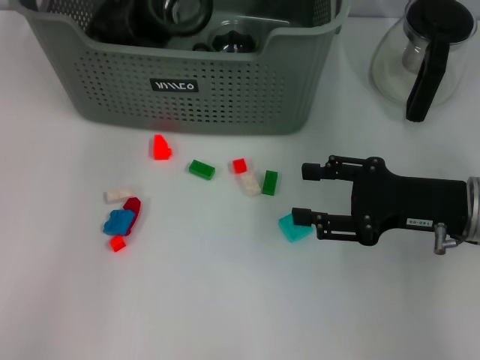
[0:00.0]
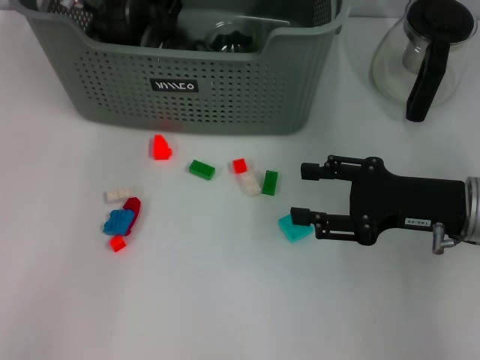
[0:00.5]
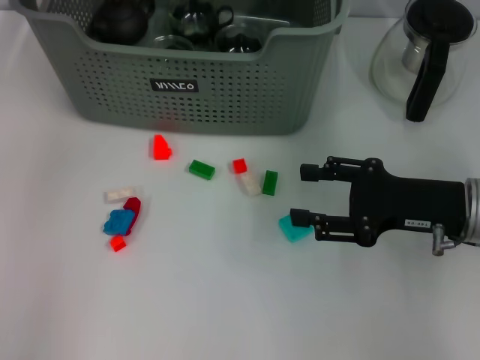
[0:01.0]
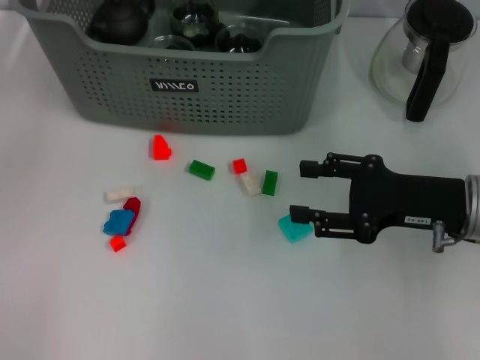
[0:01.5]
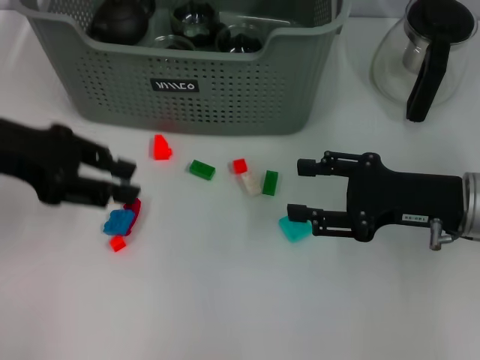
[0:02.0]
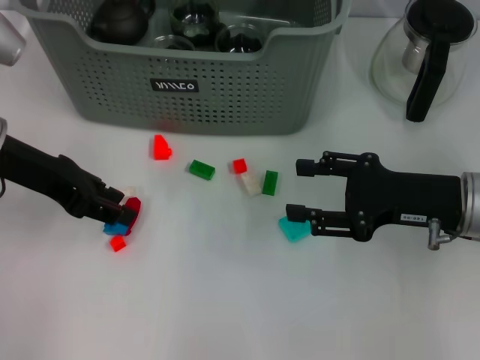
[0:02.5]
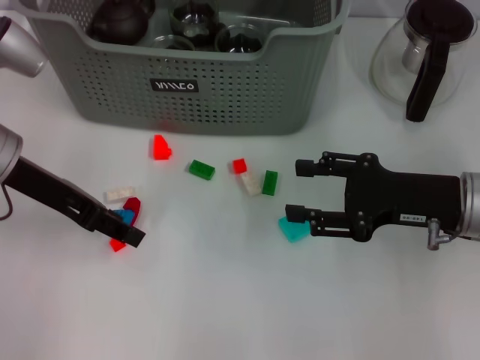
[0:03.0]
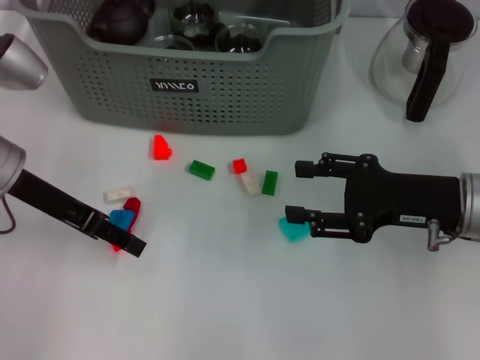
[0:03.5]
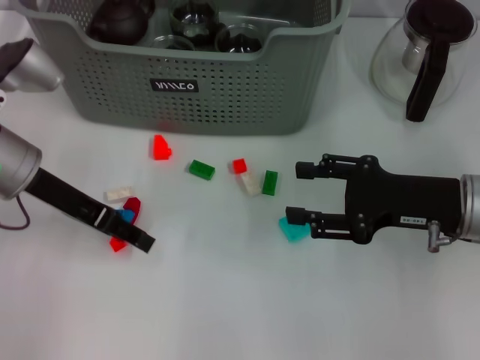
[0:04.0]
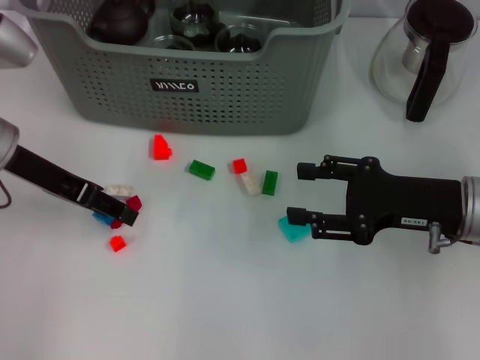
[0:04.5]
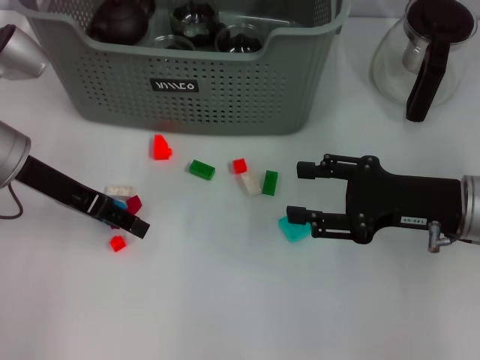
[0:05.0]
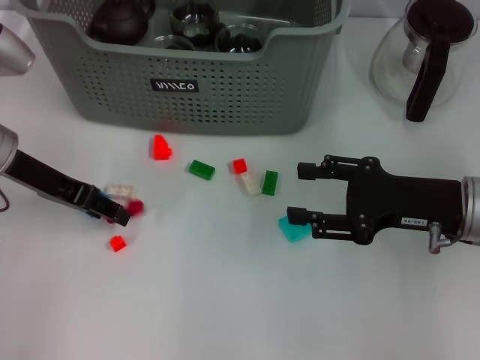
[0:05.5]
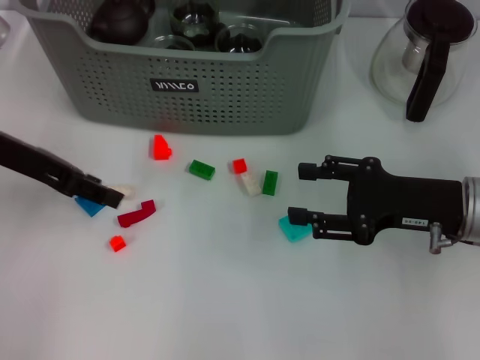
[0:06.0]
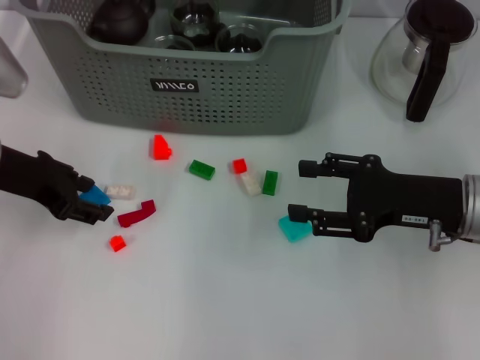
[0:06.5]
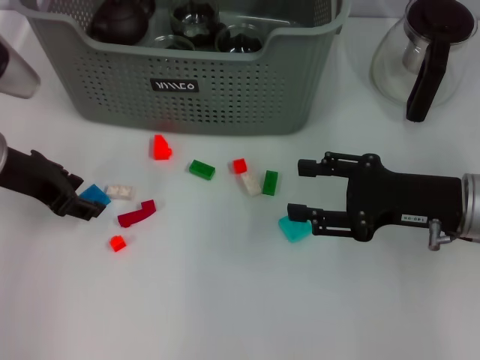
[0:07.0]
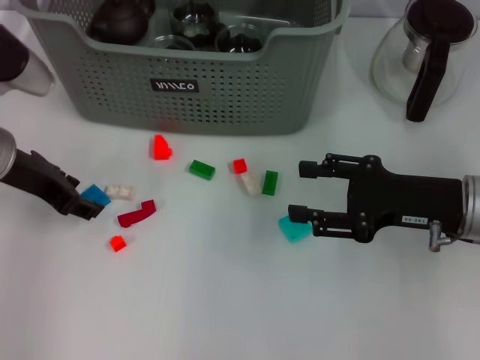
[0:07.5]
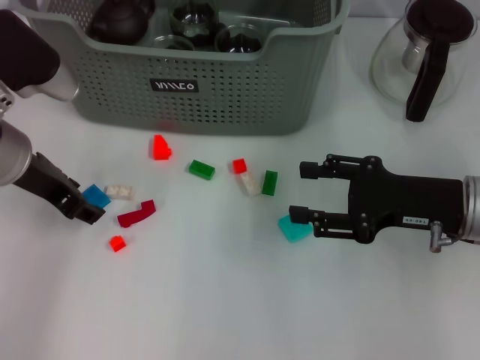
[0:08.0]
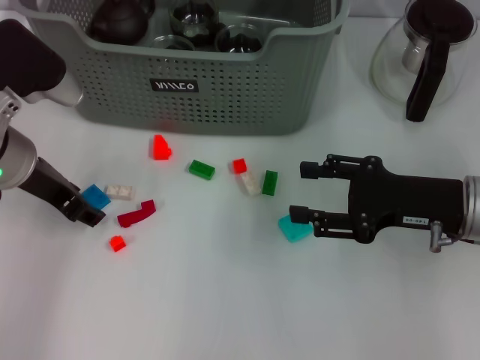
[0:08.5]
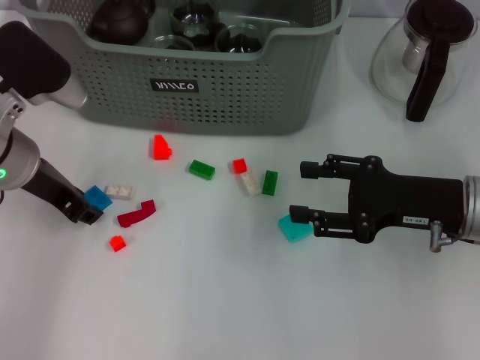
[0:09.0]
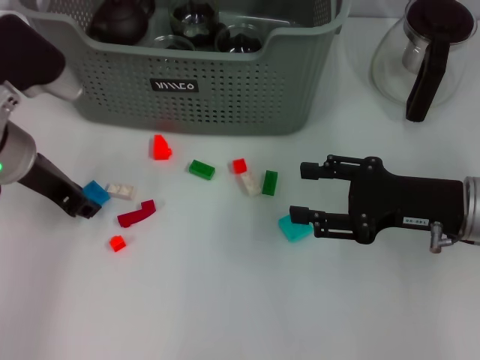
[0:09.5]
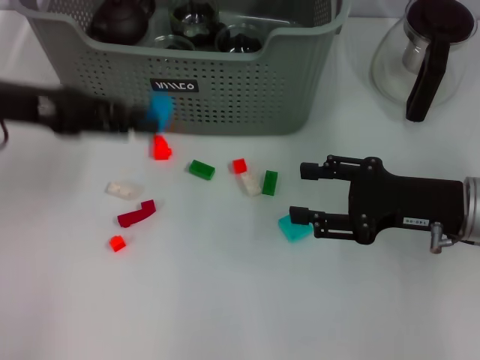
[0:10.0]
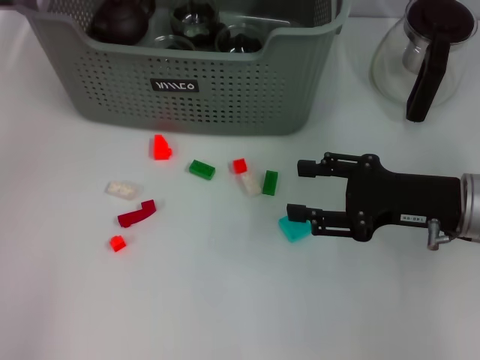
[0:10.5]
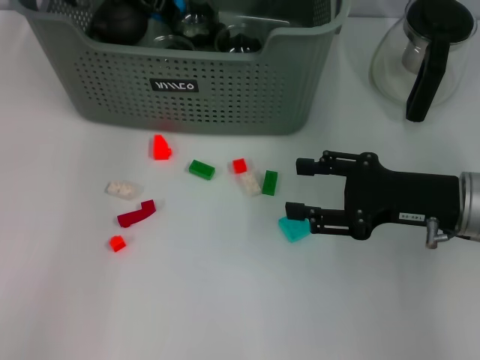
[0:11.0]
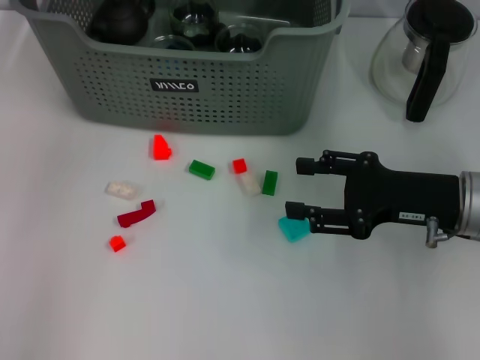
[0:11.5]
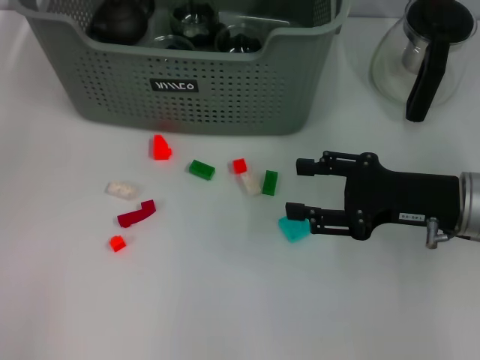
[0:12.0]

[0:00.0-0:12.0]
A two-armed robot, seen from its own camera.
Task of the whole recording: pick up the teacup on the table and place it into the storage bin, pick up the block on the table and place it into the storage bin.
Step, 0:01.5 to 0:09.5: Grasp the light blue block with left gripper.
Step, 0:10.0 to 0:11.5: Place the light blue block in the storage box with left gripper.
0:00.0 to 0:02.0: The left gripper is displaced backward and to the left by about 20 cm, and opens up.
0:02.0 to 0:04.0: The left gripper moves downward, some 5 cm.
0:04.0 to 0:06.0: The grippers make only small movements.
0:08.0 to 0:10.0: The left gripper travels upward by some 5 cm.
0:10.0 to 0:12.0: The left gripper is displaced upward by approximately 5 cm, goes forward and returns, about 15 cm each way, and opens its fingers.

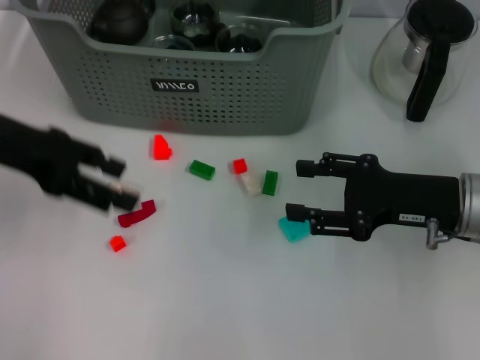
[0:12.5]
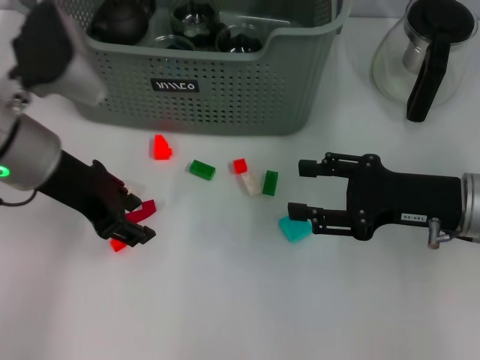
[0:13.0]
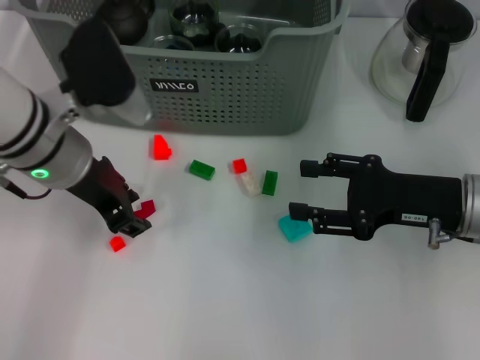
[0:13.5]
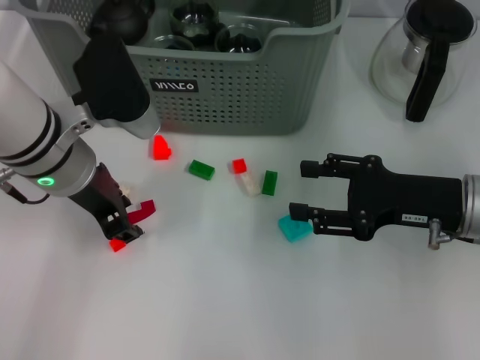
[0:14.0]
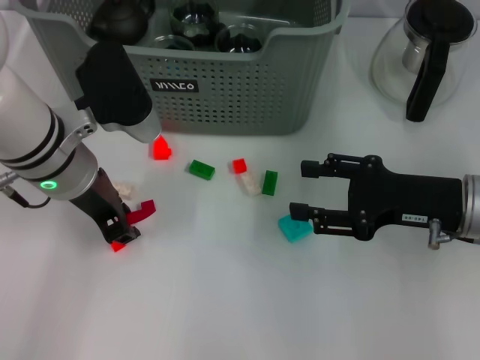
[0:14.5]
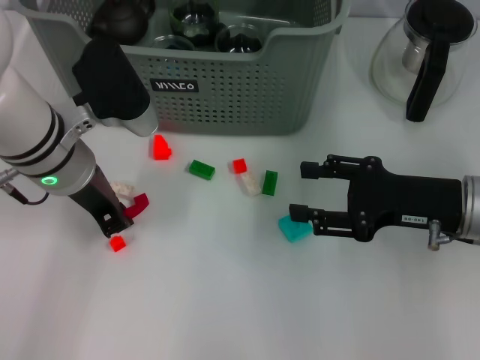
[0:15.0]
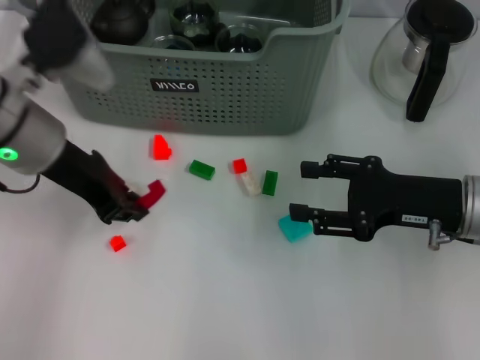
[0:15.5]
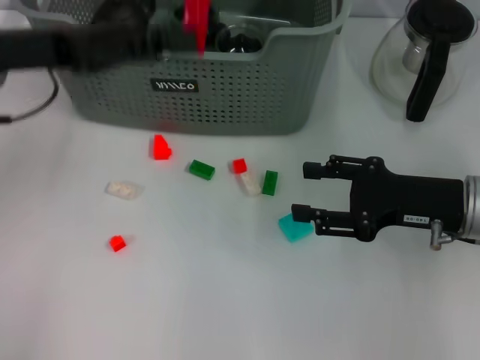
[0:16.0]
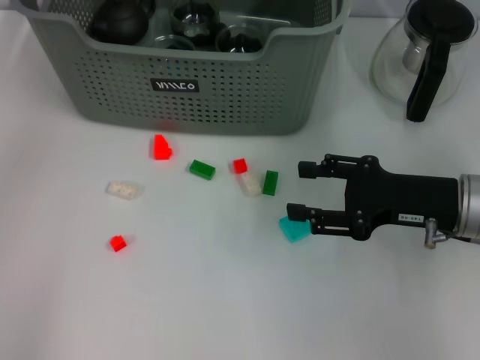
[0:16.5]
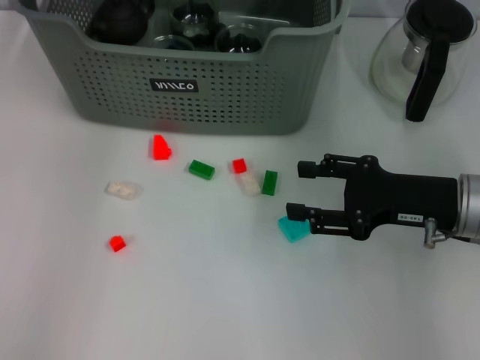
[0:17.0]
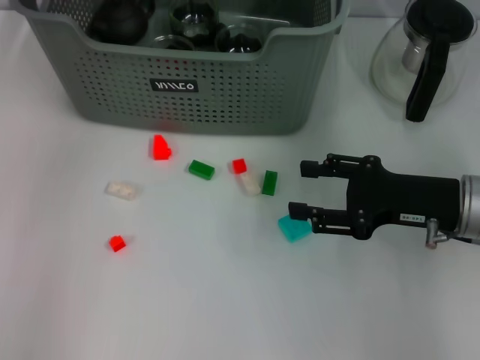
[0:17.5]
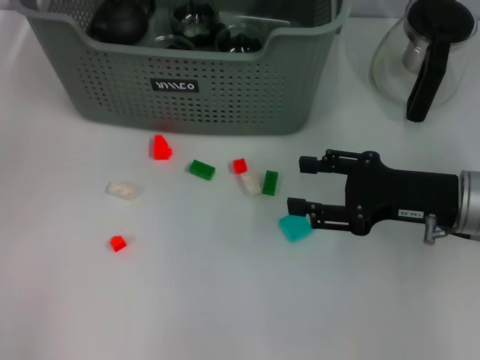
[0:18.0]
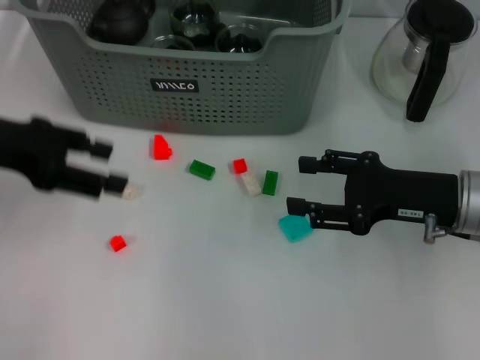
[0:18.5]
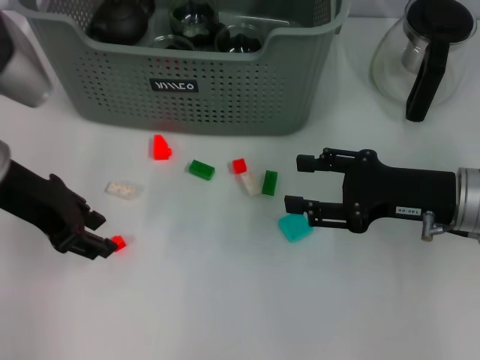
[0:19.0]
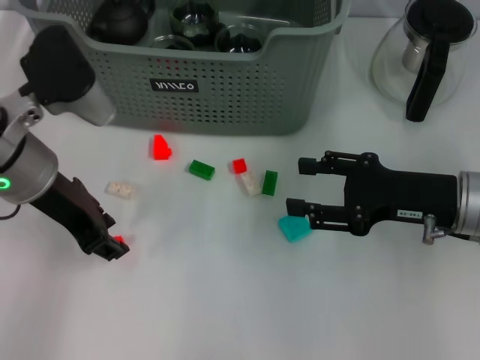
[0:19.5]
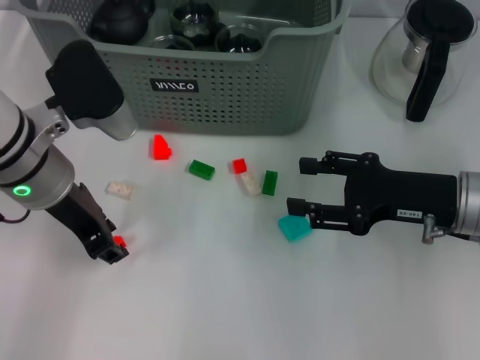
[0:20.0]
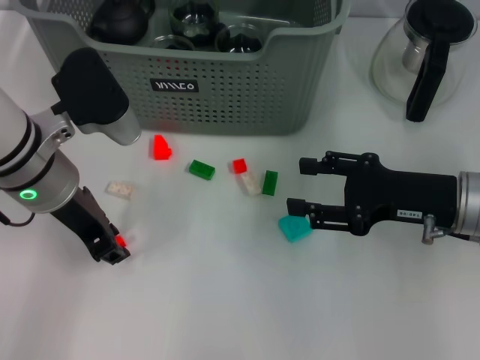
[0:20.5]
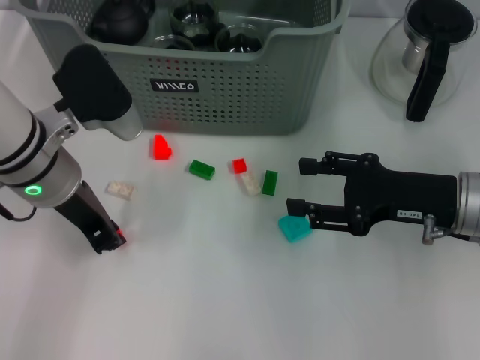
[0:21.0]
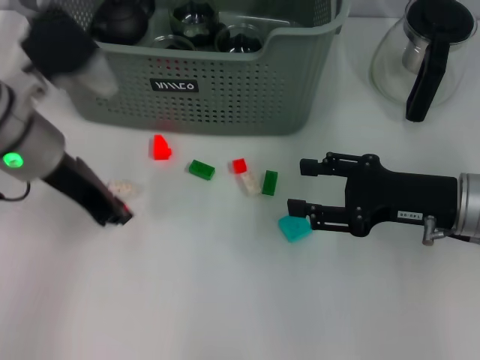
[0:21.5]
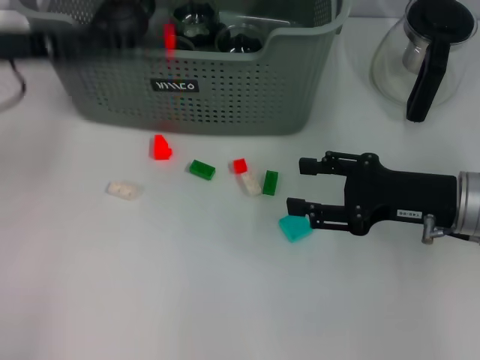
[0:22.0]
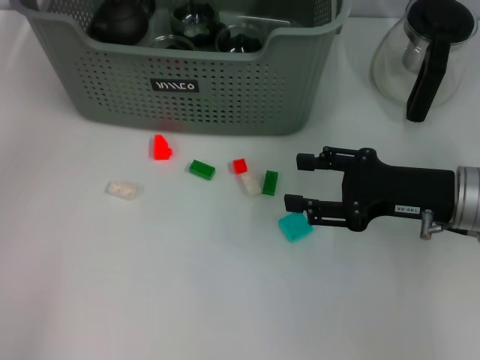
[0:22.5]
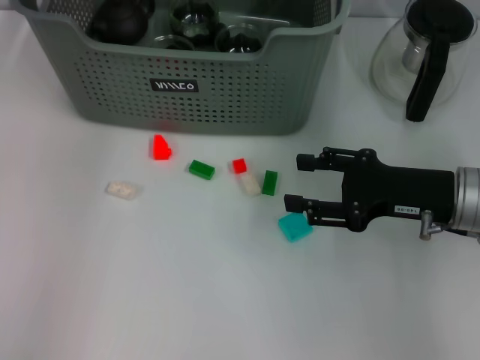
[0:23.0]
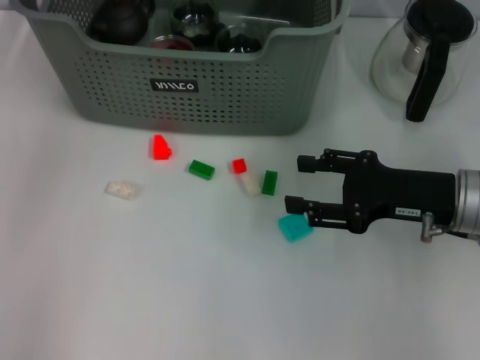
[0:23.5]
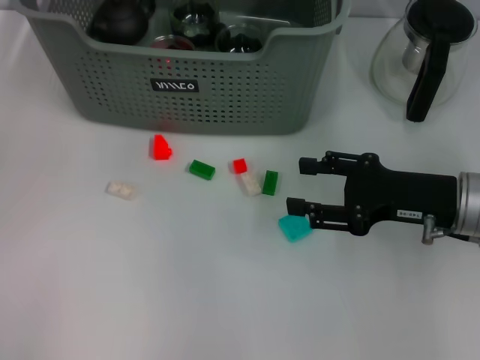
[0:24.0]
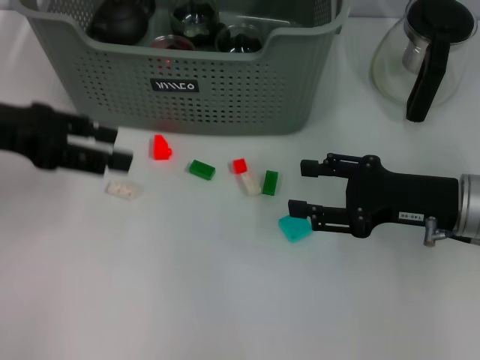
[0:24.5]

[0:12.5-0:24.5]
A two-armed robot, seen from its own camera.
Task of the whole recording: pick up the teacup on the table and place it into the storage bin, pick up the block on the table and place it into the storage bin.
Step, 0:12.5 to 0:15.0: Grasp the red block with left gripper.
Step, 0:15.5 to 0:17.0: Place the red block in the storage box with left gripper.
Step, 0:18.0 to 0:21.0: Grasp the orange block with left gripper.
Step, 0:21.5 to 0:23.5: Place the orange block in the storage box with left gripper.
0:12.5 to 0:14.5: The left gripper goes roughly 10 cm to the right and downward, and closes up.
0:14.5 to 0:16.5: The left gripper travels upward, forward and to the left by about 20 cm.
0:16.5 to 0:18.5: The left gripper travels backward, downward and to the left by approximately 15 cm, and opens up.
0:18.5 to 0:20.5: The left gripper moves to the right and downward, about 10 cm, and closes.
0:20.5 to 0:22.5: The left gripper travels upward, forward and to the left by some 20 cm.
0:22.5 to 0:24.5: The left gripper heads backward and downward, covering roughly 15 cm, and opens up.

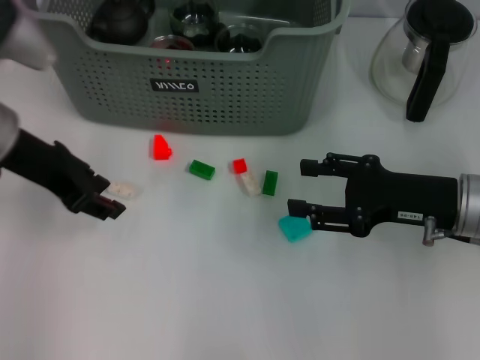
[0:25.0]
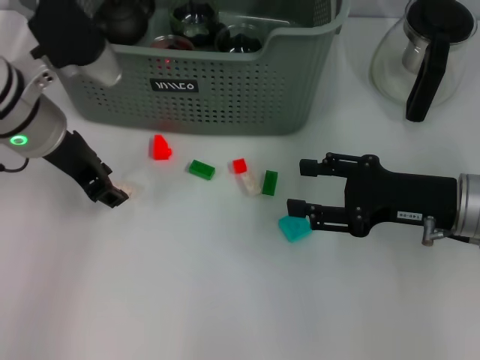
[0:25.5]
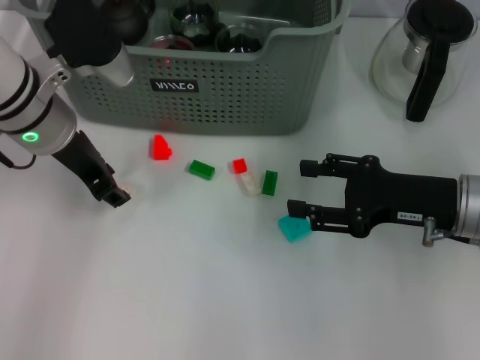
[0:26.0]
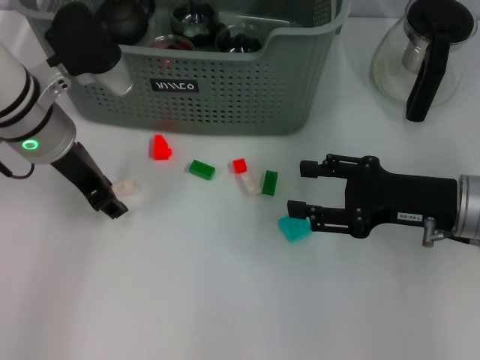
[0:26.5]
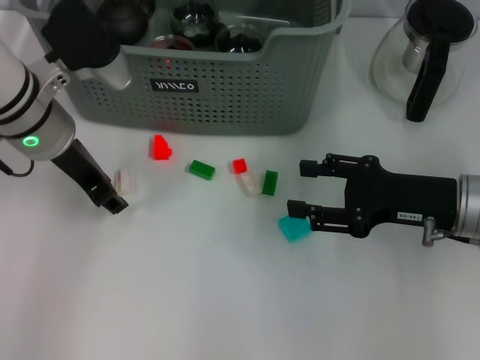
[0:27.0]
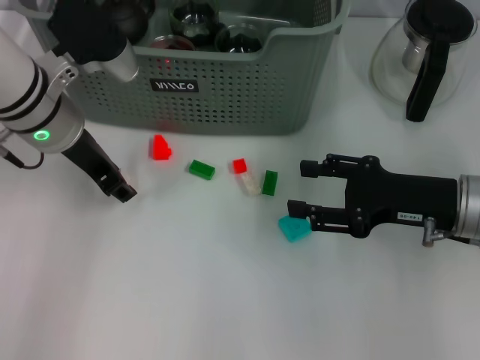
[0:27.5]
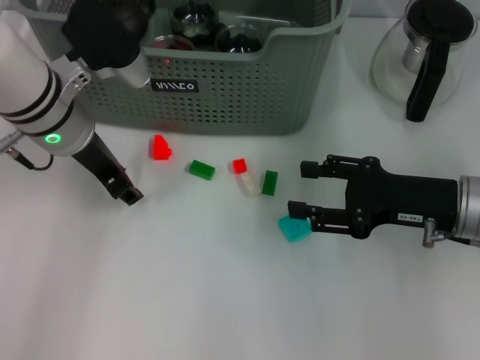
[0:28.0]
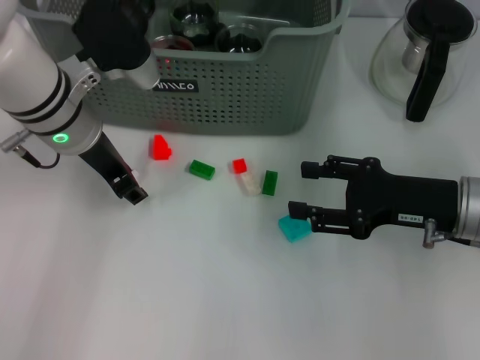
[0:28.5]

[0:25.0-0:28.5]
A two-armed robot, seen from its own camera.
Task of the whole recording: pick up the teacup on the table and place it into the storage bin, pick up the block on the table and place it into the storage bin.
0:25.0 to 0:27.0: The left gripper changes place by approximately 5 cm.
0:27.0 to 0:28.5: There are only small adjustments of the grippers.
